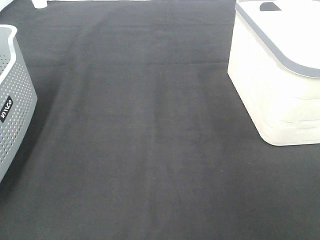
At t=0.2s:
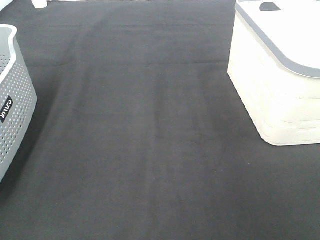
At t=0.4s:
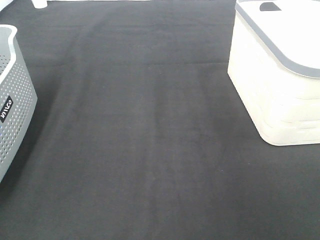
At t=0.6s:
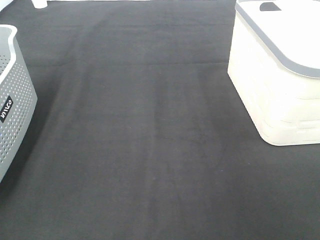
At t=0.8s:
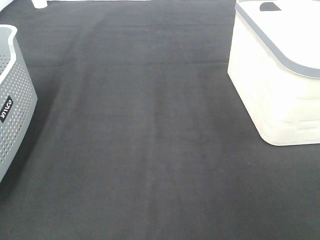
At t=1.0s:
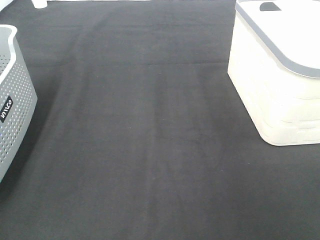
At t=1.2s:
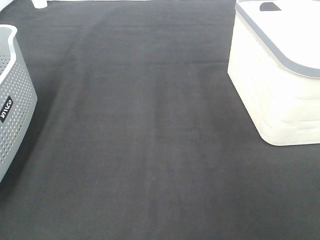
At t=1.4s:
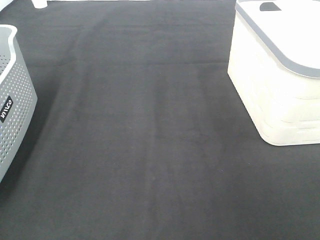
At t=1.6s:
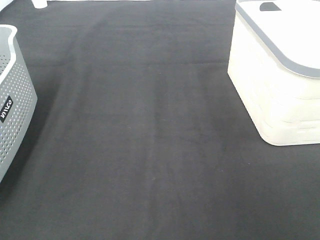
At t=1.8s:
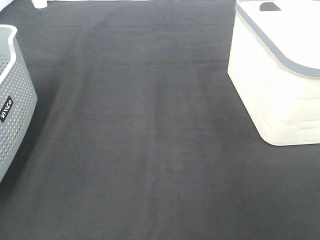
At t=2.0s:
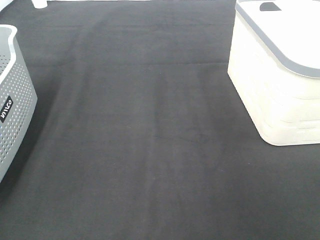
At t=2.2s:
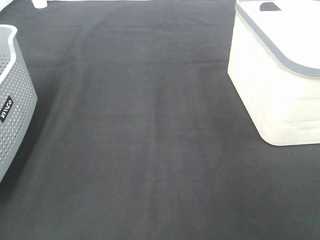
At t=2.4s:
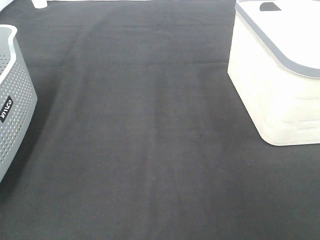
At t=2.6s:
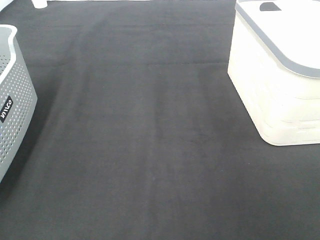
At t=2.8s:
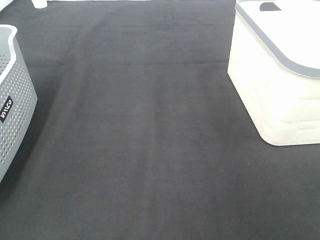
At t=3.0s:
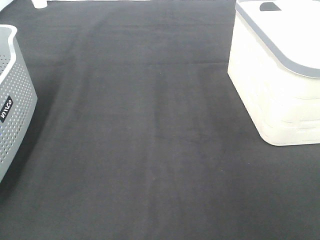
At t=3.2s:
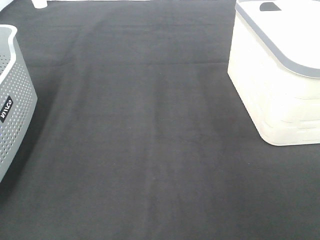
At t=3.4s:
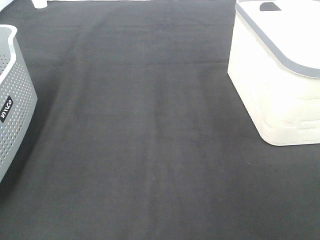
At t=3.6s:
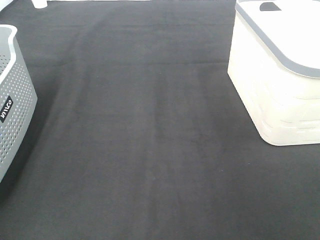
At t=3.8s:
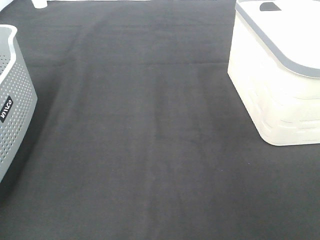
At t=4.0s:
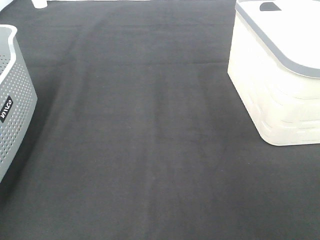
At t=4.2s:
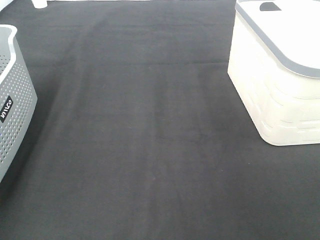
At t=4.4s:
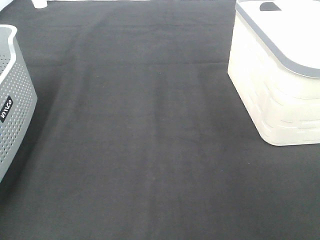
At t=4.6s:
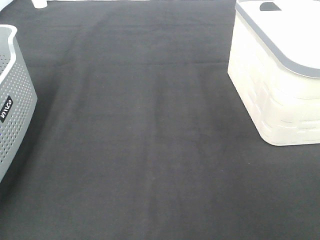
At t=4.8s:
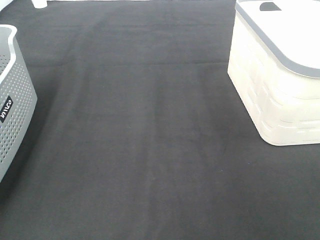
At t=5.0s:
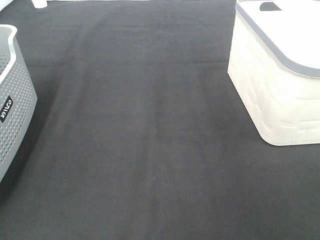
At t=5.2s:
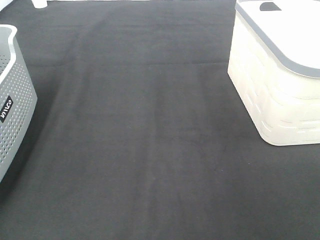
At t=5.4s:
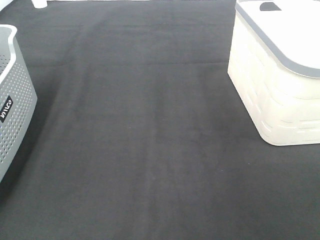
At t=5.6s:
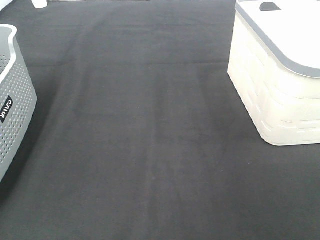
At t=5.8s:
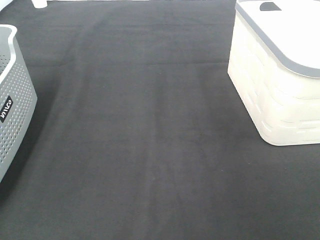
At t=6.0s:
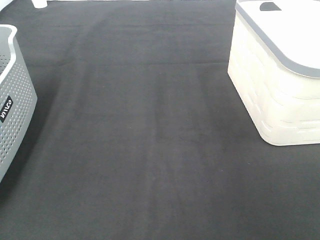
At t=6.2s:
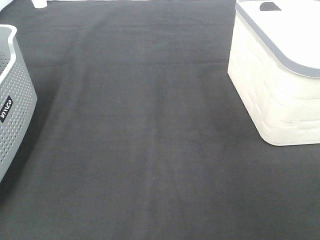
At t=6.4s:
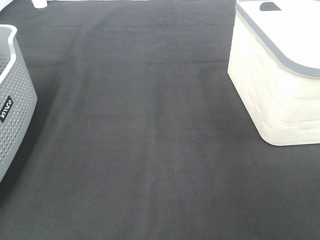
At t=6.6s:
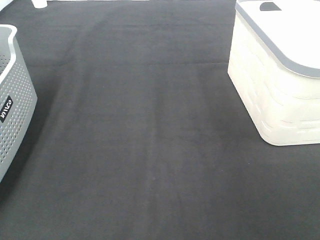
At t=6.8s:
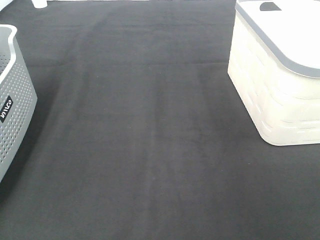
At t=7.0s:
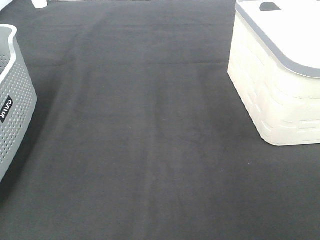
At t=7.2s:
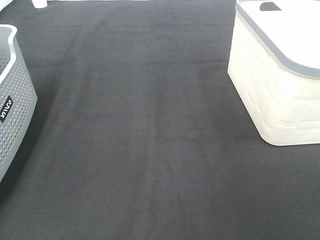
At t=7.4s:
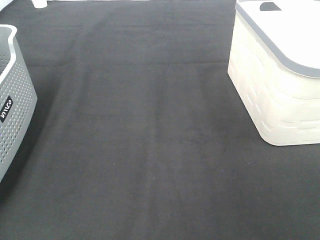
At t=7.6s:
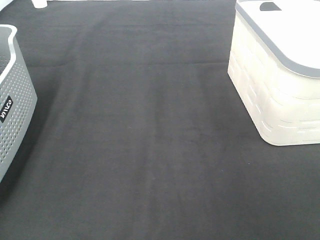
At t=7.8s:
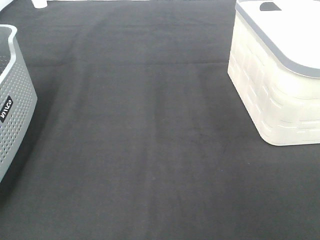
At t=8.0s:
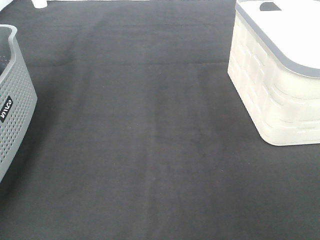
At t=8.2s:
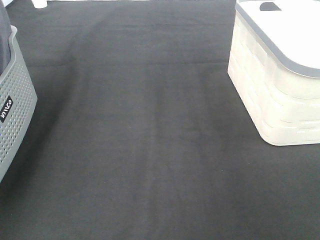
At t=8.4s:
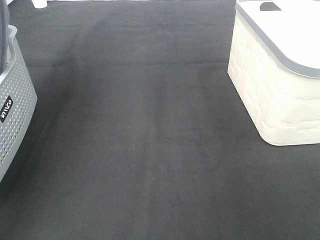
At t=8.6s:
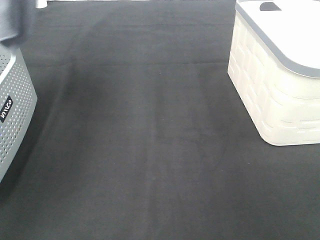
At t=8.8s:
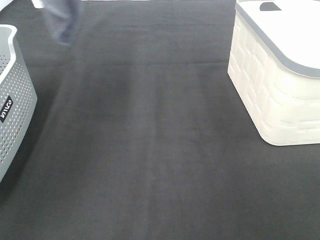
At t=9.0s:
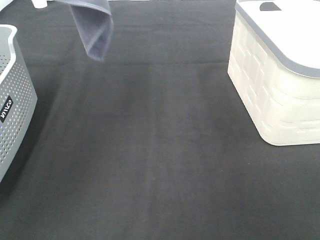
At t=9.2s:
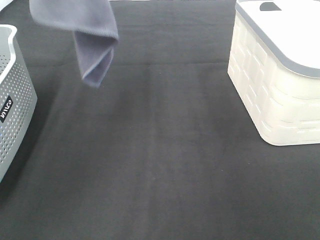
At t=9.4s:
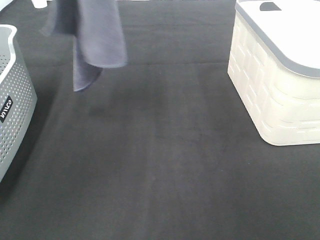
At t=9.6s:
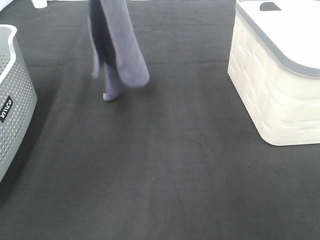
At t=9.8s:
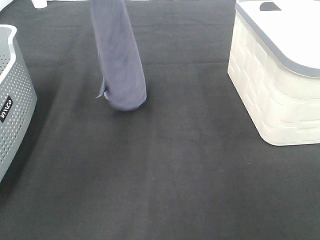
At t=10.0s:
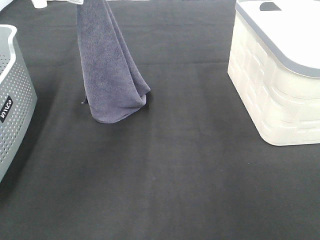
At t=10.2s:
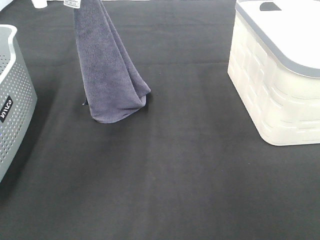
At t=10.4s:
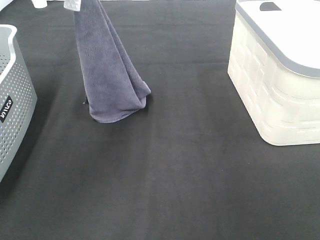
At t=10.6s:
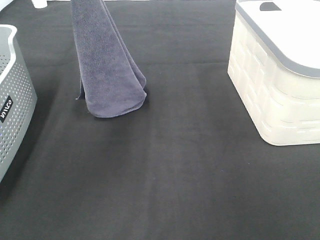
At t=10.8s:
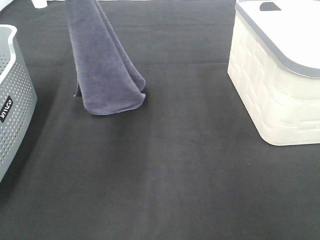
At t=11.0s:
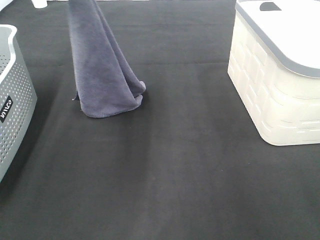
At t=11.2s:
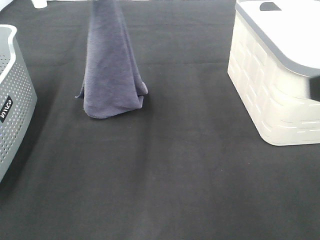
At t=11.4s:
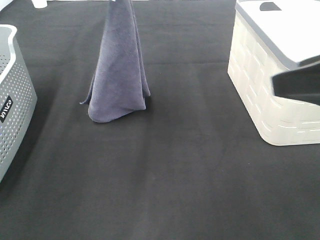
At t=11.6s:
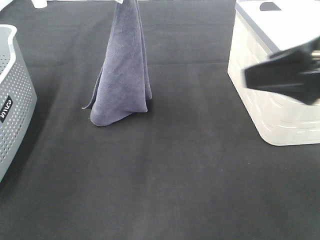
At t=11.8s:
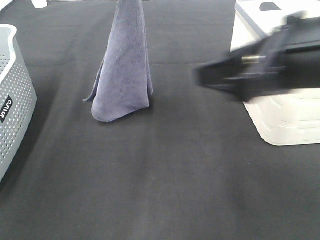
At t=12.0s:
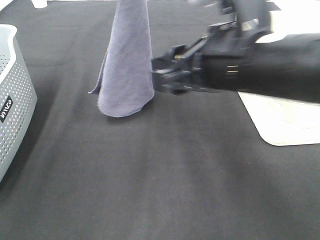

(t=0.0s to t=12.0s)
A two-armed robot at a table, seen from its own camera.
Task of the whole recording: Remove the towel and place it.
t=0.0s - t=3.0s: Neither gripper changes place.
t=7.6s - t=9.0s: The left gripper travels to the right and upward by approximately 25 cm.
t=9.0s - t=10.4s: The left gripper travels downward by roughly 20 cm.
t=10.4s - t=12.0s: The right gripper goes approximately 30 cm forward and to the left. The left gripper goes roughly 10 cm to the right and upward.

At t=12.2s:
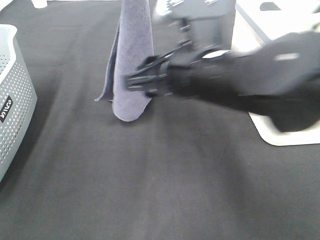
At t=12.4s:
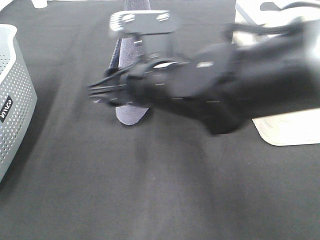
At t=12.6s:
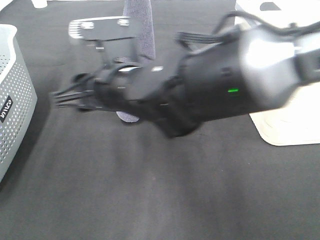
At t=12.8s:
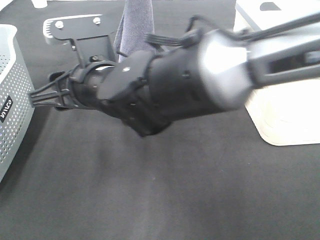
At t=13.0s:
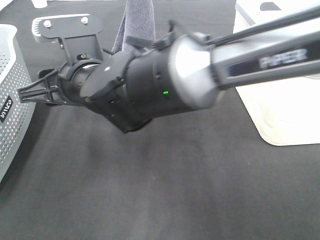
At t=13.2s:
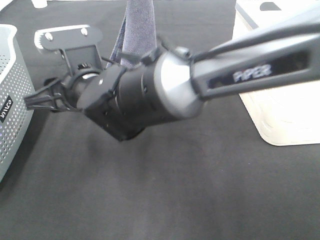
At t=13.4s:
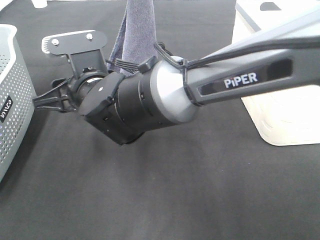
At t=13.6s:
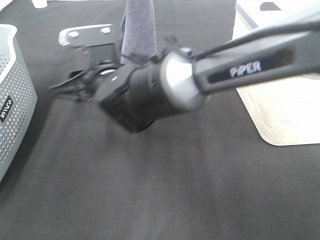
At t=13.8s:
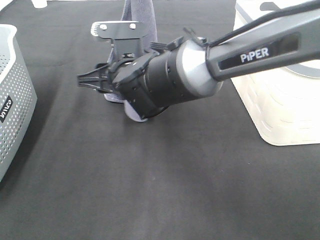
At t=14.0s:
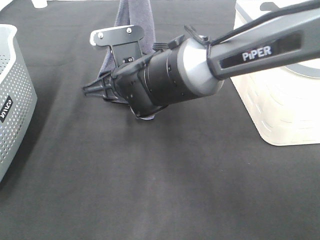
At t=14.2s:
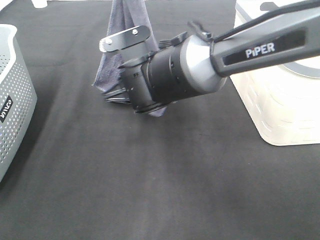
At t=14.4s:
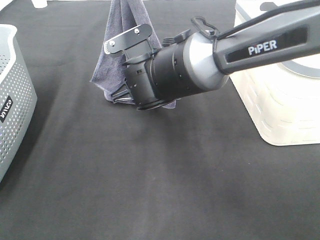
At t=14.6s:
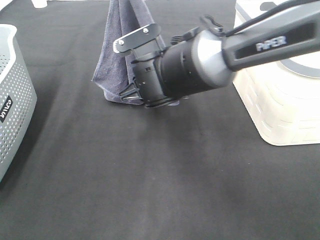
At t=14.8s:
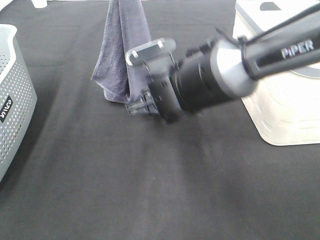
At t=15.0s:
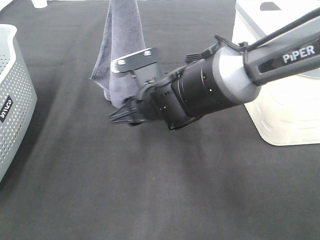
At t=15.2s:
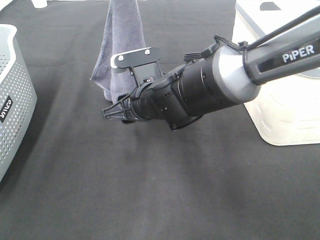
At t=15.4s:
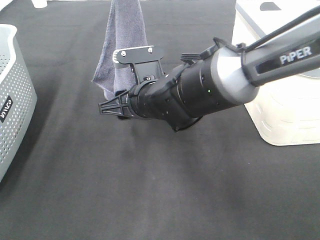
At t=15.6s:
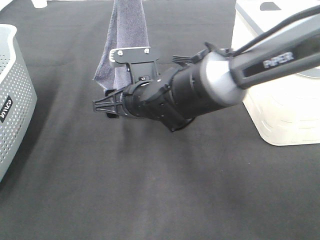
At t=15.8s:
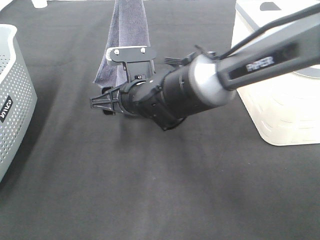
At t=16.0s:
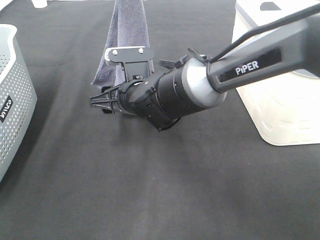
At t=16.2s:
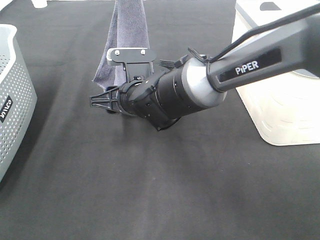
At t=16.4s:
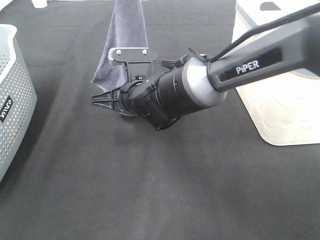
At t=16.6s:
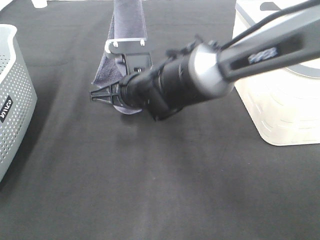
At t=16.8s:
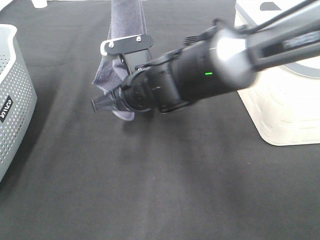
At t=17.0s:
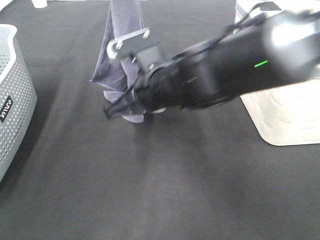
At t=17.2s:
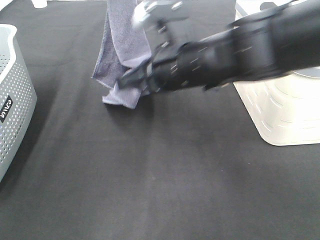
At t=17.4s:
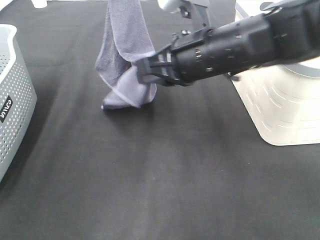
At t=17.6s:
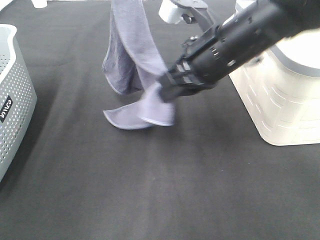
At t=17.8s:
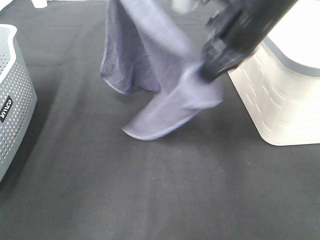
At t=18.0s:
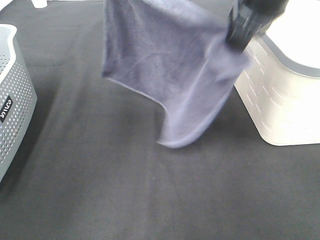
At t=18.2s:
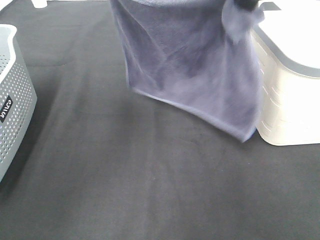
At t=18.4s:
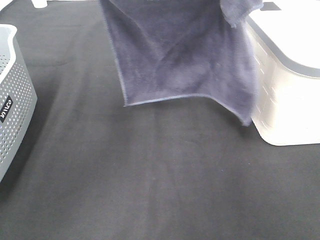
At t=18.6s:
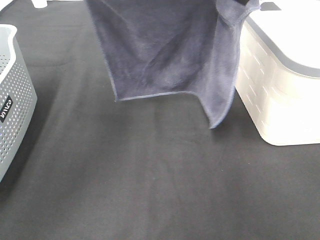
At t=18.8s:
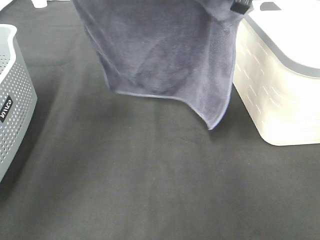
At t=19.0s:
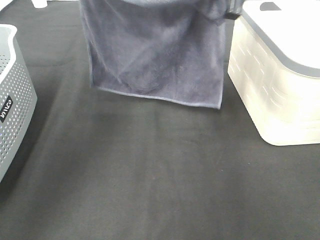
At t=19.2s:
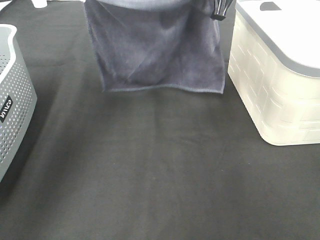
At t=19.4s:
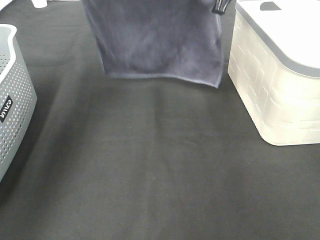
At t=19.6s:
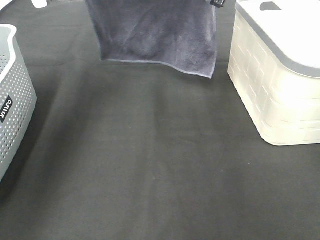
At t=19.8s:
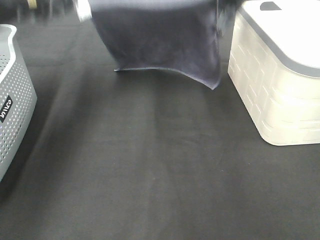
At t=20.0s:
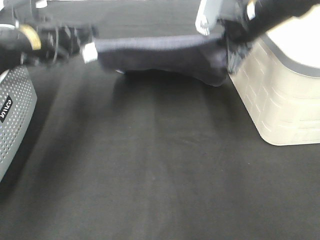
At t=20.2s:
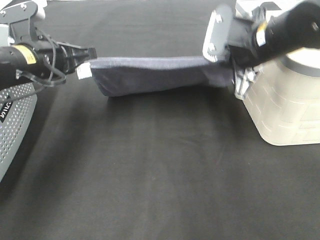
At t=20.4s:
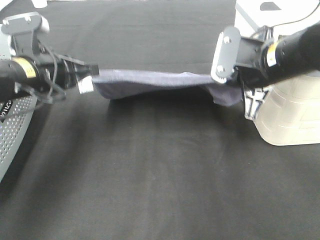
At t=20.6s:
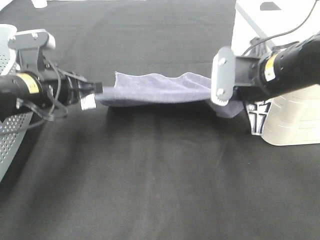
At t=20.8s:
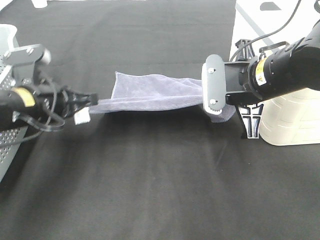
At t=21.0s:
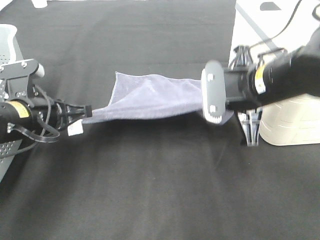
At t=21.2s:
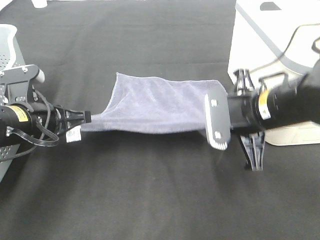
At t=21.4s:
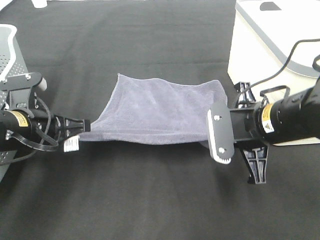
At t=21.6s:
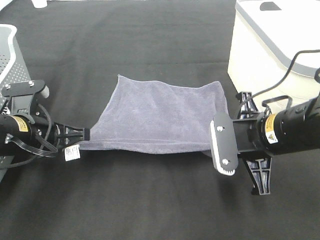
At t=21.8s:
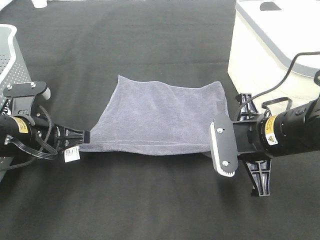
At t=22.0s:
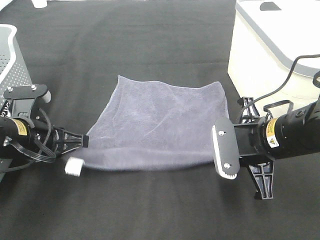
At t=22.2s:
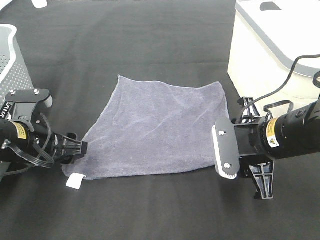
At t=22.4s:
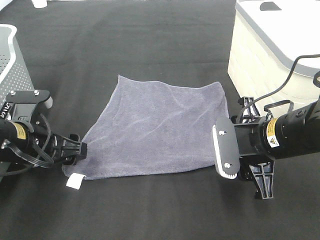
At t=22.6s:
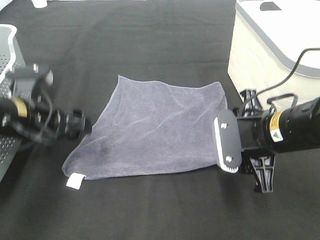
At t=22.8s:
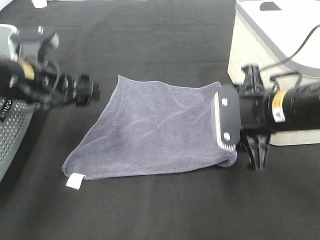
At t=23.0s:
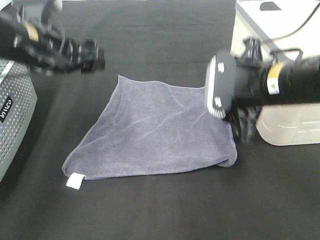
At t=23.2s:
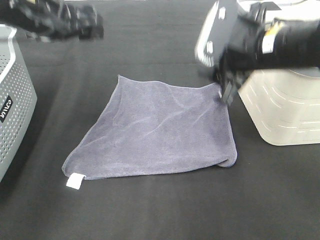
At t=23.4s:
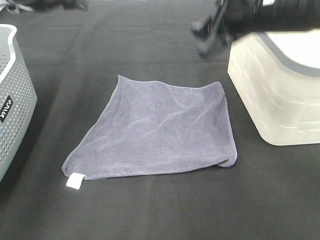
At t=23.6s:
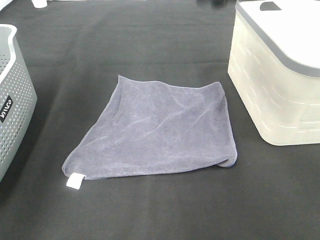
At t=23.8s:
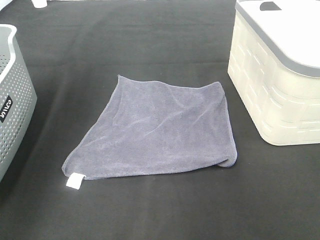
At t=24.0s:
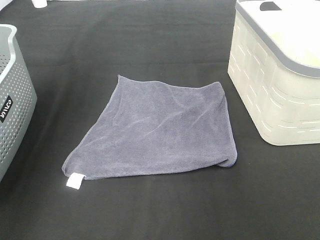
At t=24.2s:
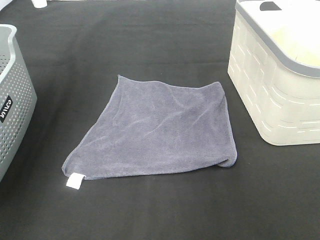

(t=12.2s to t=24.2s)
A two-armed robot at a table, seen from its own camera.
Task of the whole recording: Remove the towel and place it.
Step, t=12.2s - t=14.4s: Right hand: grab a corner of the grey towel and straighten it.
Step, t=14.6s - t=17.6s: Right hand: spread the grey towel flat on the table.
t=12.2s - t=13.8s: The right gripper heads forward, to the left and downward, covering approximately 15 cm.
t=13.8s - t=15.2s: The right gripper ends up approximately 5 cm from where it was.
t=15.2s - t=16.6s: The right gripper closes its fingers.
t=16.6s - t=18.2s: The right gripper is displaced upward and to the right by approximately 30 cm. The left gripper moves to the left, some 10 cm.
t=18.2s - t=19.8s: The left gripper shifts roughly 15 cm downward and to the left. The right gripper shifts about 15 cm downward and forward.
t=19.8s - t=21.2s: Both grippers move backward and downward, roughly 20 cm.
t=21.2s - t=22.6s: The right gripper opens; the left gripper opens.
t=22.6s - t=24.2s: The left gripper moves upward, about 25 cm; the right gripper heads upward and forward, covering about 30 cm.
